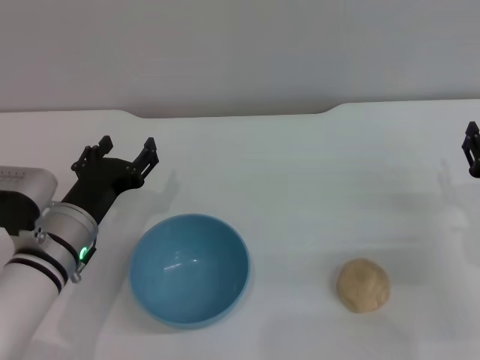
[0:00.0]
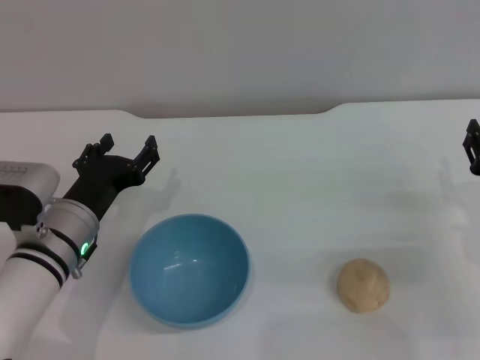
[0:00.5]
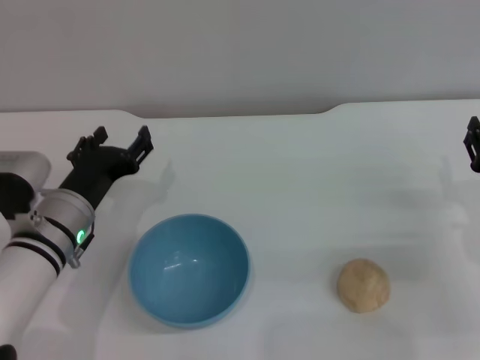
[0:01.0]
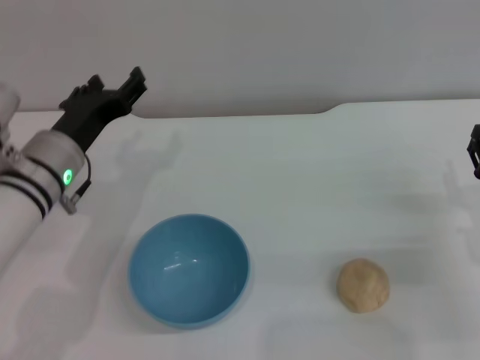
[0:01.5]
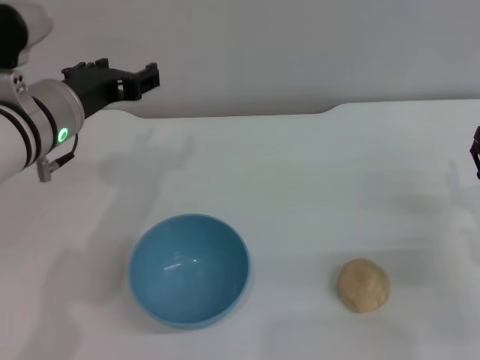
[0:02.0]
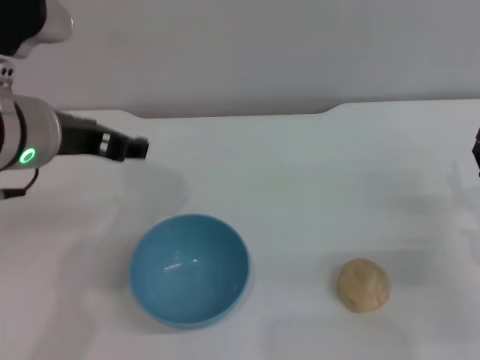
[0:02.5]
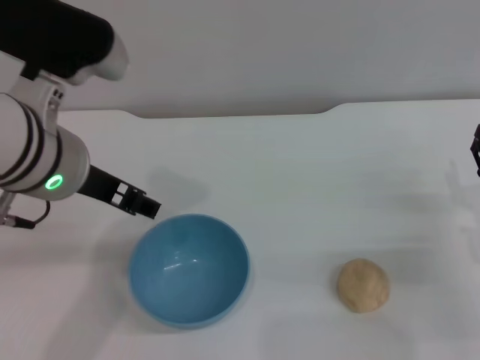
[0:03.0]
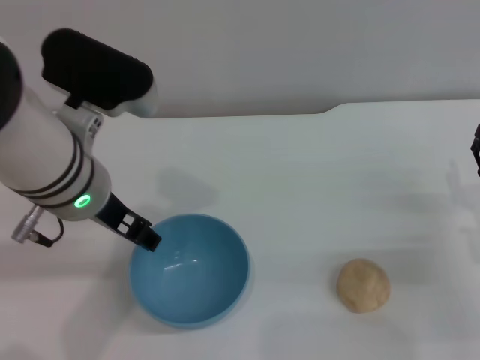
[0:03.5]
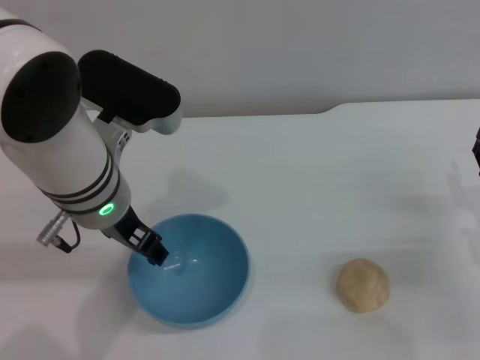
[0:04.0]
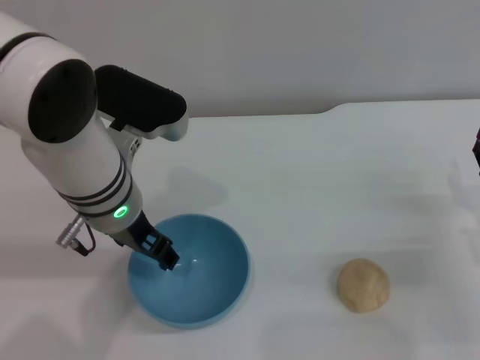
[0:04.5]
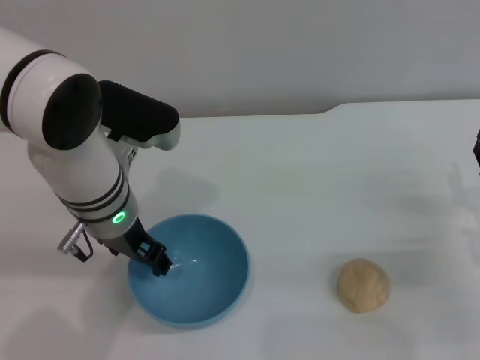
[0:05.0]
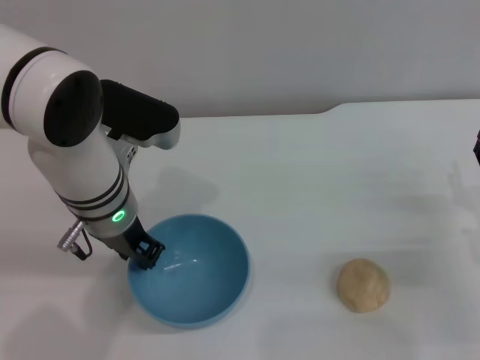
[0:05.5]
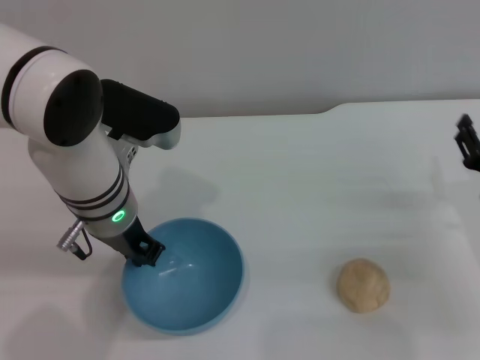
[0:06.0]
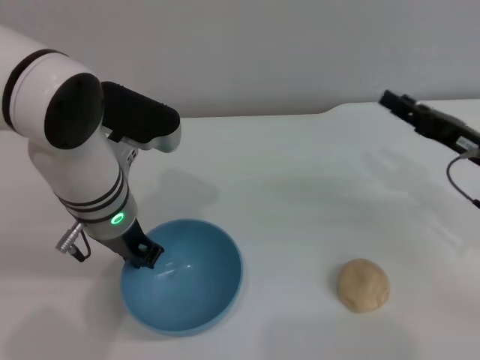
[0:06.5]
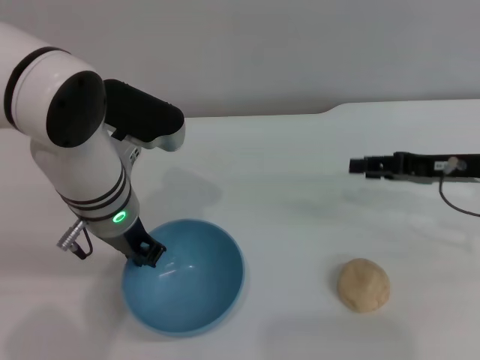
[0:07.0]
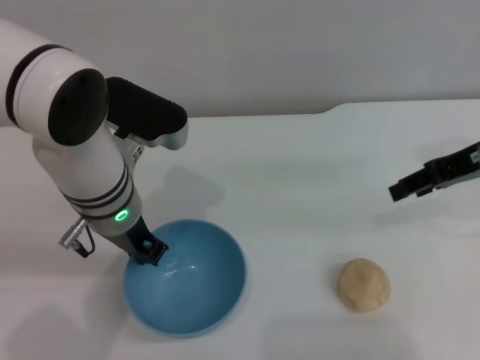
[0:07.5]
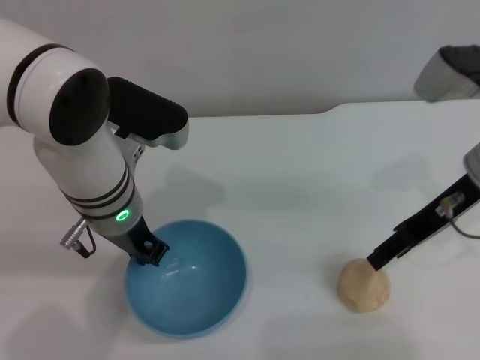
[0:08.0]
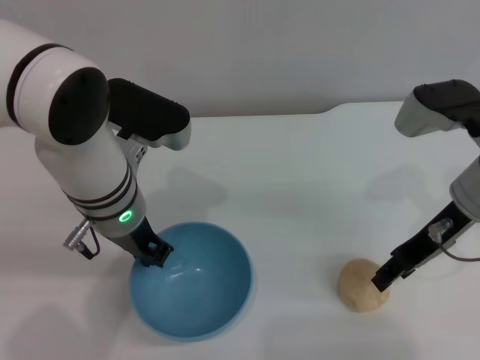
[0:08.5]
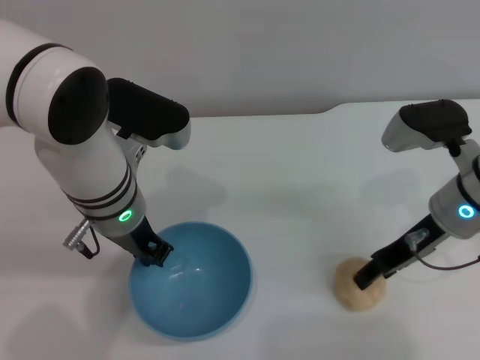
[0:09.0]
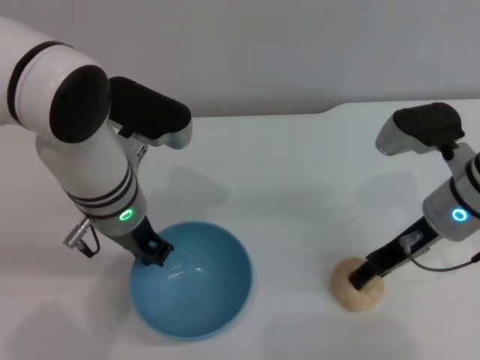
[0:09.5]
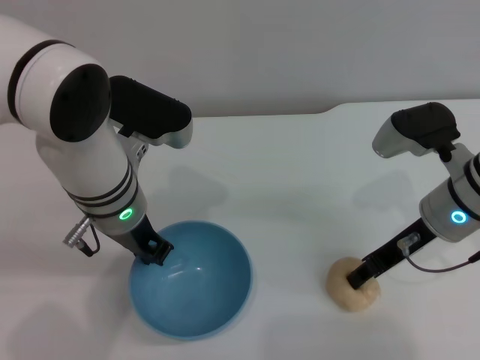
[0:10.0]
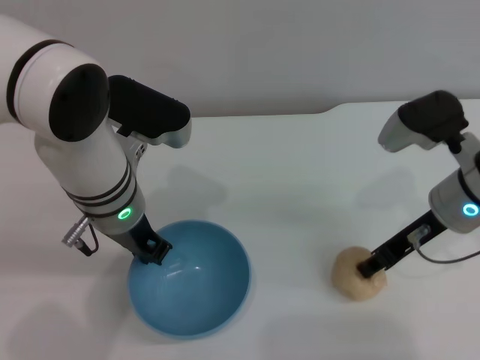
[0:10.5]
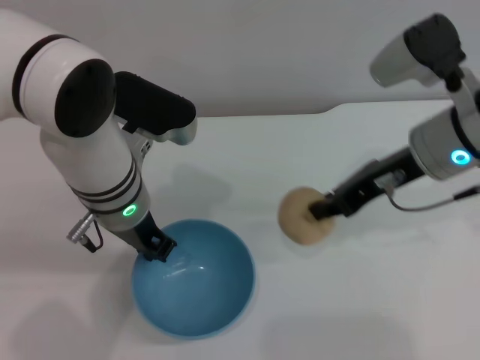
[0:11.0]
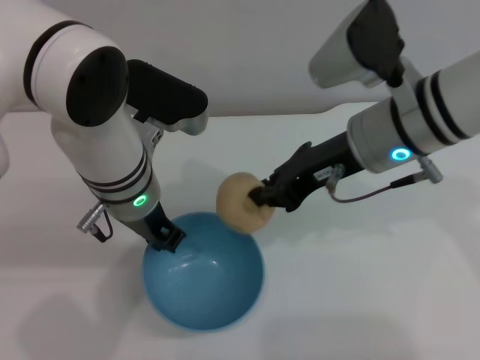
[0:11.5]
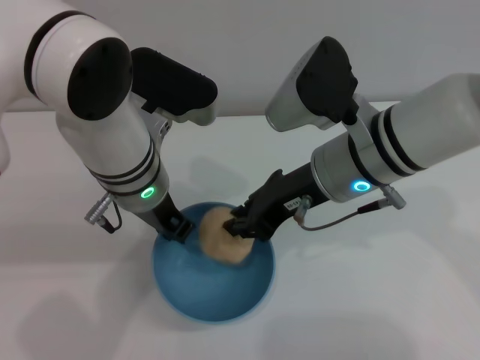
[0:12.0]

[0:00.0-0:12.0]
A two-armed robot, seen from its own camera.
Task of the whole recording: put the egg yolk pastry into the blue bowl and pour it out repeatedly.
Step, 0:00.0 to 0:08.0: Pick up the bowl with the left gripper.
Step, 0:08.5 to 0:10.5: Pick up the egg yolk pastry with the right gripper.
0:00.0 to 0:02.0: The left gripper moves upward, some 15 cm.
0:02.0 to 0:04.0: The left gripper moves to the right, about 5 cm.
0:04.0 to 0:06.0: The left gripper closes its fingers.
0:06.0 to 0:08.0: The right gripper heads upward, to the left and forward, covering roughly 15 cm.
0:08.0 to 0:10.0: The right gripper moves downward, about 5 cm.
0:10.0 to 0:12.0: The right gripper travels to the left and upward by roughly 15 cm, and closes.

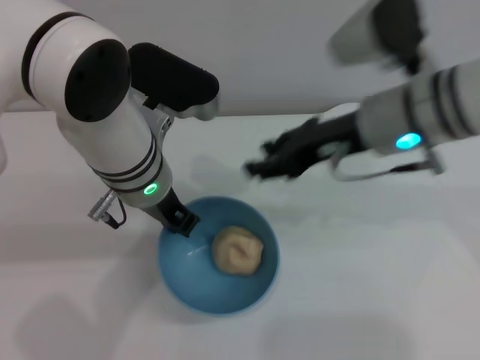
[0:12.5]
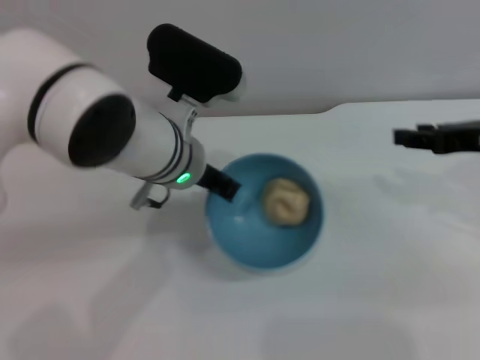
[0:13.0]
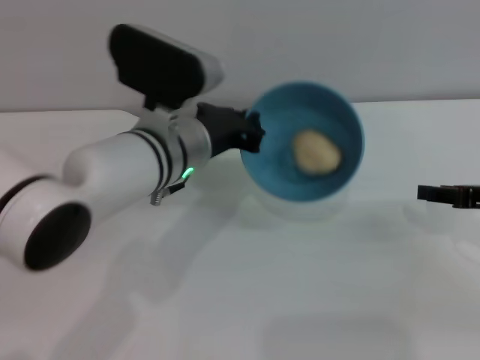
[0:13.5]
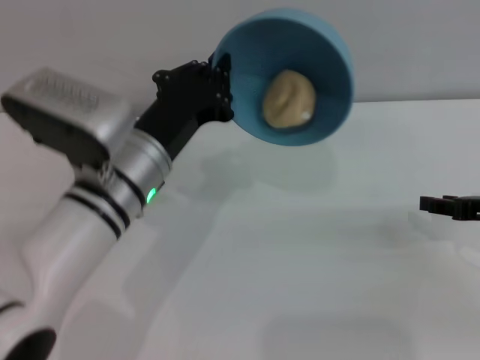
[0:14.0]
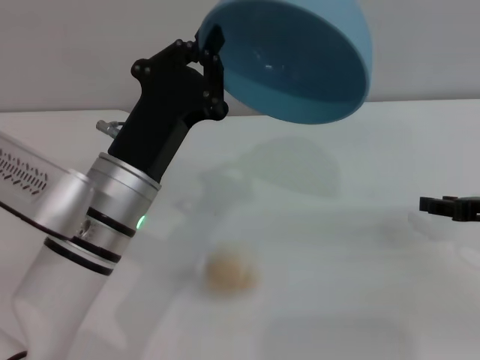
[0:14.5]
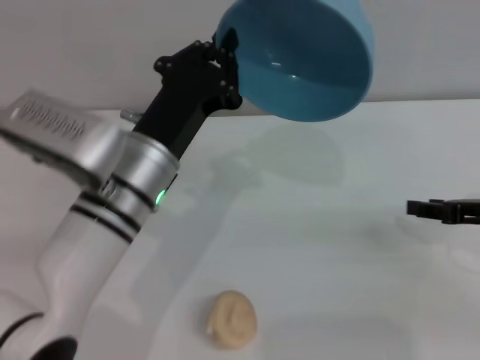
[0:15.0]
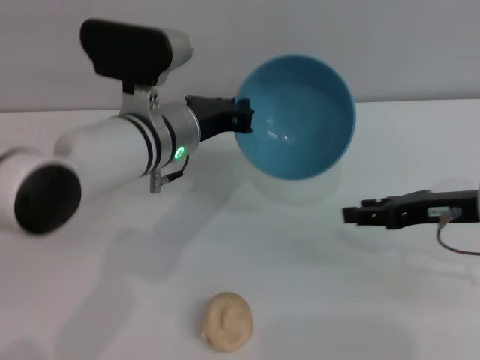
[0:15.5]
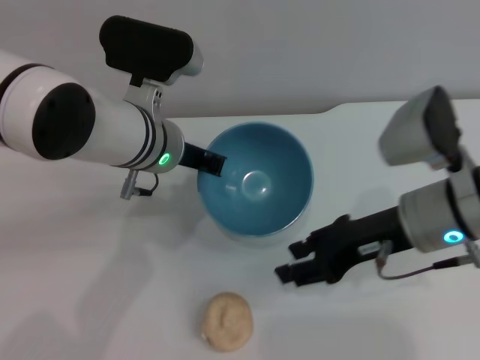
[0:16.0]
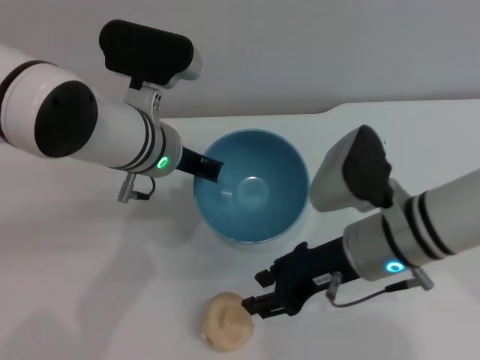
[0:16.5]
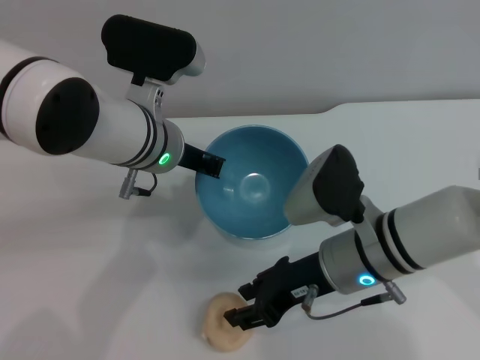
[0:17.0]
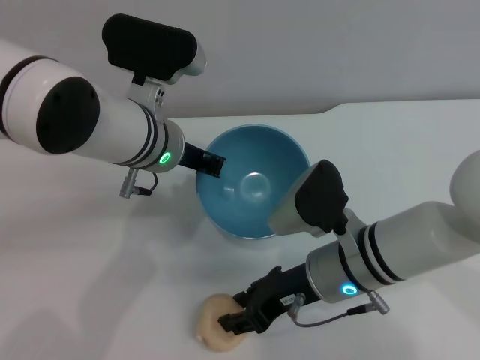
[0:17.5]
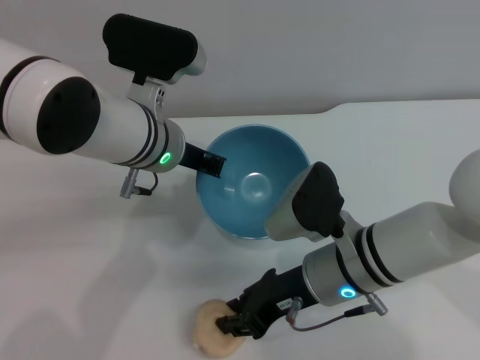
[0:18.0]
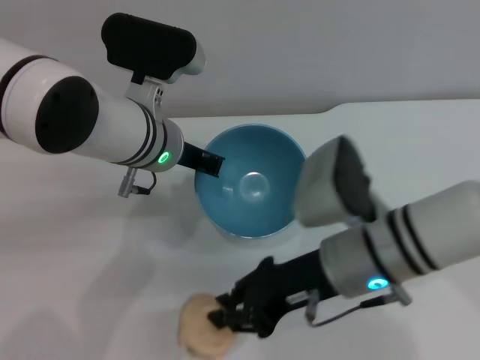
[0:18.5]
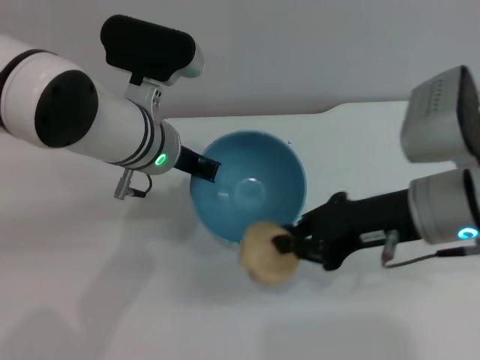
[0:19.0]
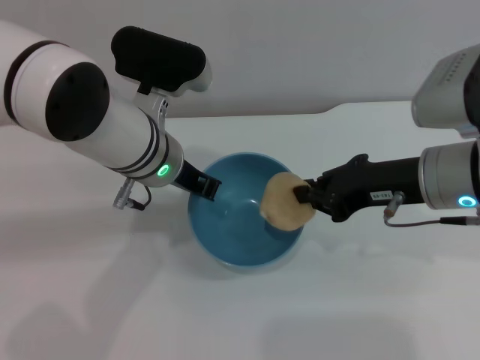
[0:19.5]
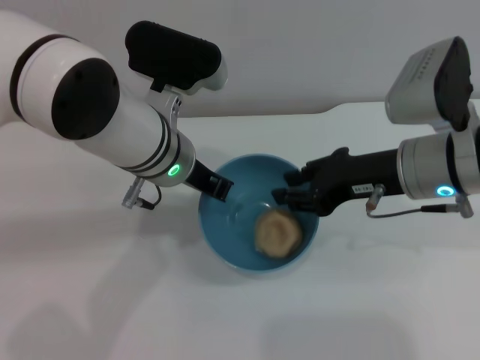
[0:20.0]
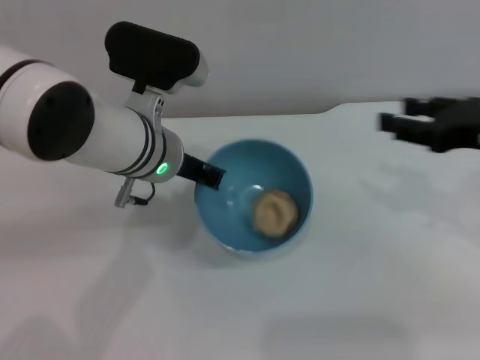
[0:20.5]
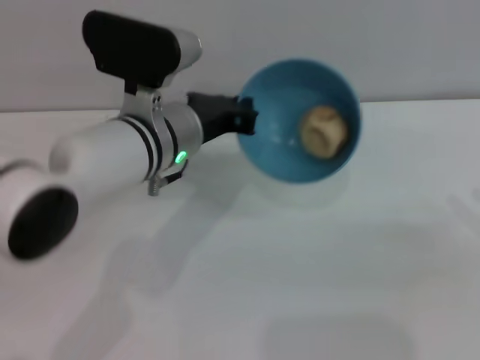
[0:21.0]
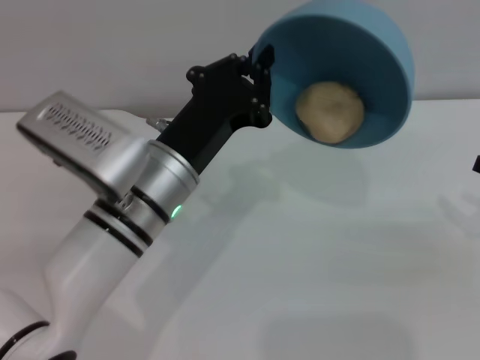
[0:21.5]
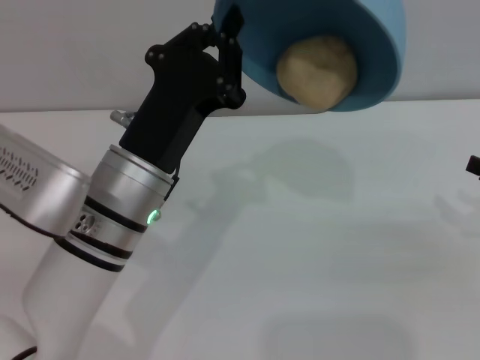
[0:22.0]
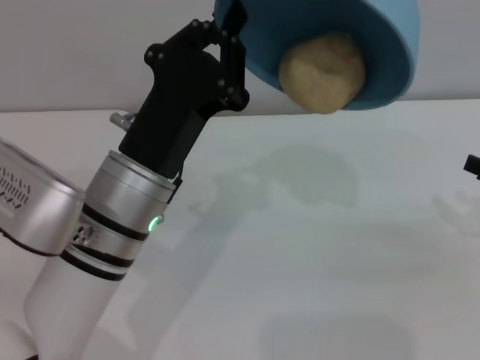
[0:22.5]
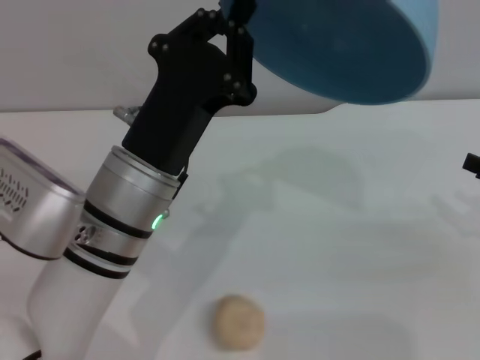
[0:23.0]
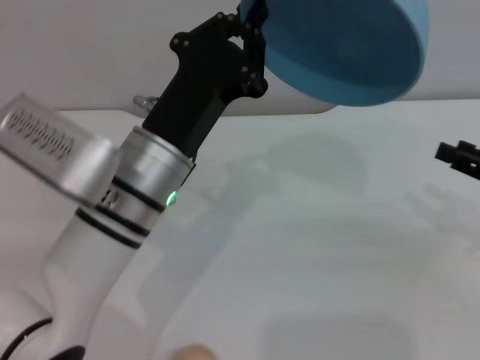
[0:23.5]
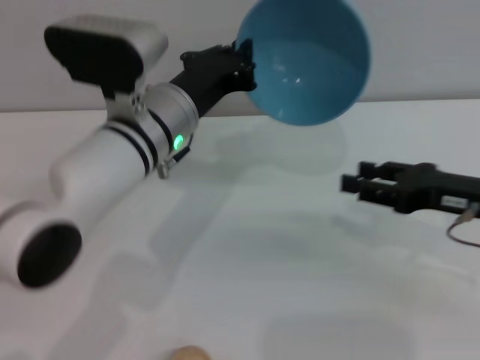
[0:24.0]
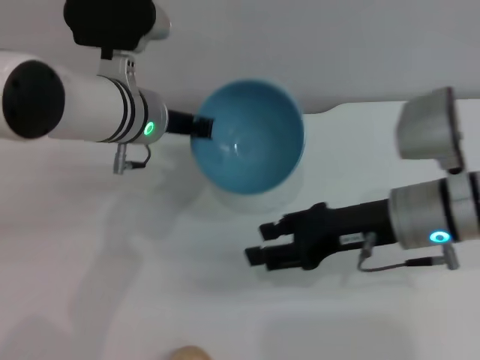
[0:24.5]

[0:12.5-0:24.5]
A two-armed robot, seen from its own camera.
Task of the whole recording: put the egg yolk pastry into the blue bowl and pour it out repeatedly.
Step, 0:12.5 to 0:14.5: Pour the egg yolk pastry out of bowl.
Step, 0:15.0 to 0:18.5: Pick up the egg yolk pastry with the right gripper.
Step, 0:19.0 to 0:20.0: Place the egg yolk pastry into the bowl.
Step, 0:20.5 to 0:23.0: Pour the egg yolk pastry out of bowl.
0:12.5 to 0:14.5: The left gripper shifts approximately 10 cm backward, while the right gripper is displaced to the right and downward by approximately 20 cm.
0:14.5 to 0:16.5: The right gripper is displaced to the left by approximately 20 cm. The left gripper heads forward, covering about 10 cm.
0:16.5 to 0:18.5: The right gripper closes.
0:18.5 to 0:20.5: The right gripper shifts about 20 cm to the right, and opens up.
0:20.5 to 0:22.5: The left gripper moves backward, approximately 10 cm, while the right gripper heads to the right and downward, covering some 10 cm.
0:22.5 to 0:24.5: The right gripper goes about 20 cm to the left; the left gripper shifts some 15 cm forward.

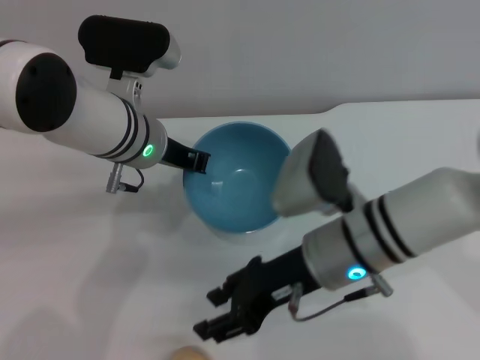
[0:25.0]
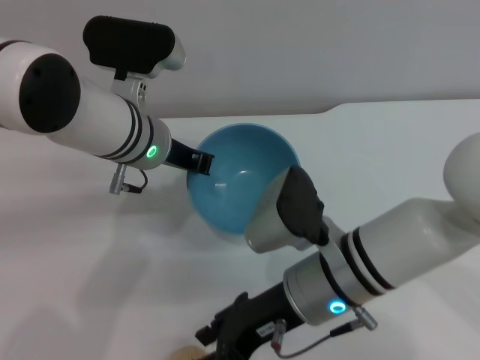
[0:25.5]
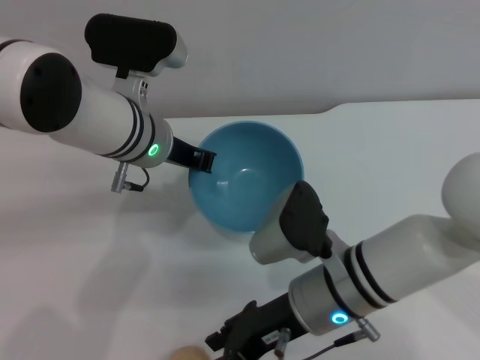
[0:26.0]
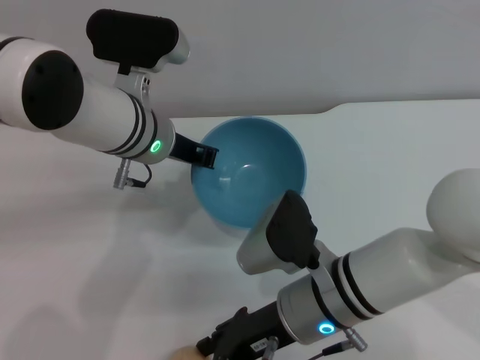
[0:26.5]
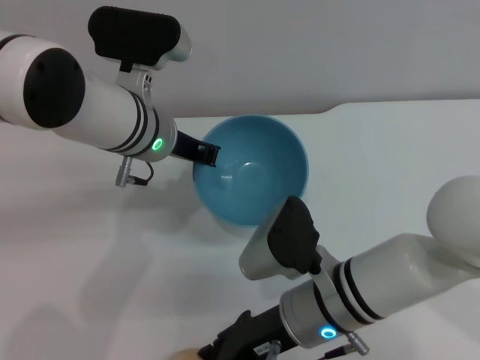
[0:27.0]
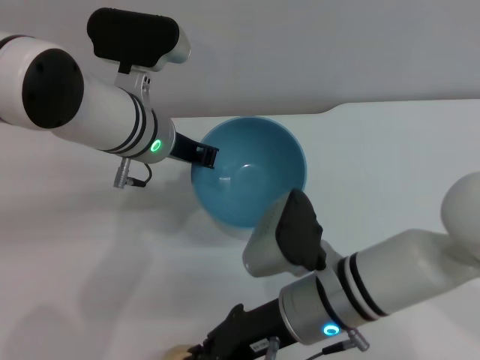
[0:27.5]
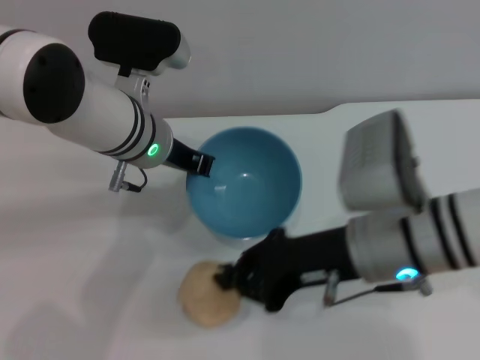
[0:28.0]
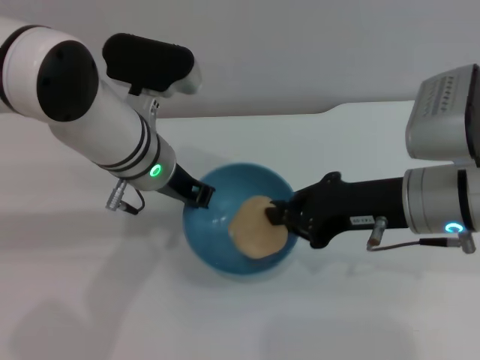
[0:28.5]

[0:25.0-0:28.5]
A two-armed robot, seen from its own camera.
Task of the whole recording: put the egg yolk pastry into the blue bowl and pour it out repeatedly.
Step, 0:25.0 to 0:28.0: Pick up the egg yolk pastry with the right gripper.
0:25.0 to 0:27.0: The right gripper goes roughly 5 cm downward.
0:27.0 to 0:28.5: The right gripper travels to the right and upward by some 15 cm, and closes.
